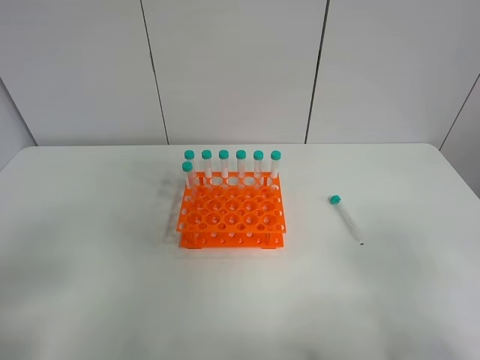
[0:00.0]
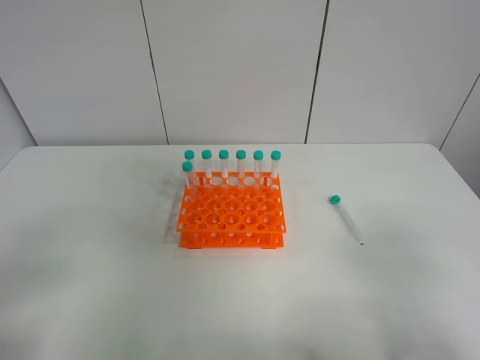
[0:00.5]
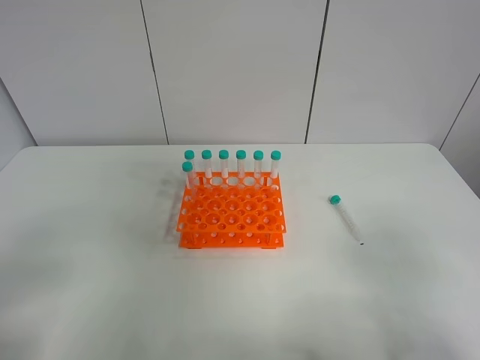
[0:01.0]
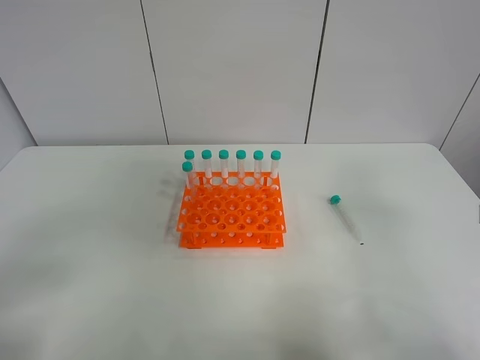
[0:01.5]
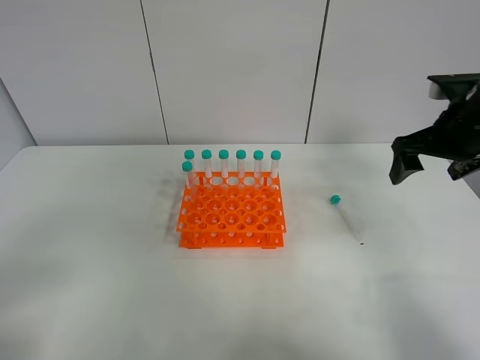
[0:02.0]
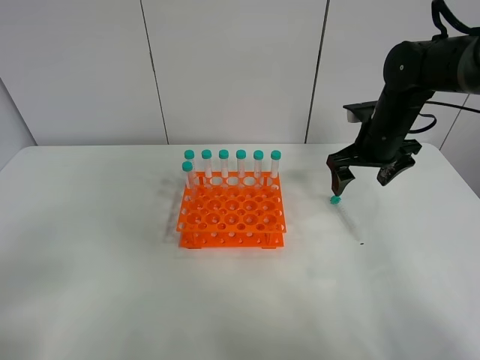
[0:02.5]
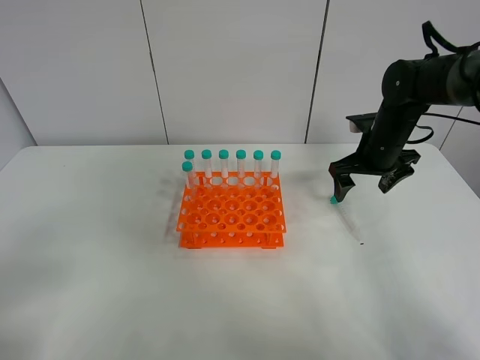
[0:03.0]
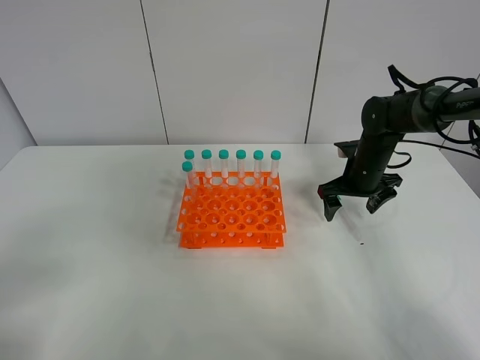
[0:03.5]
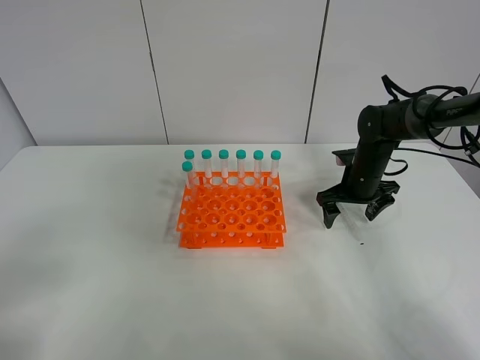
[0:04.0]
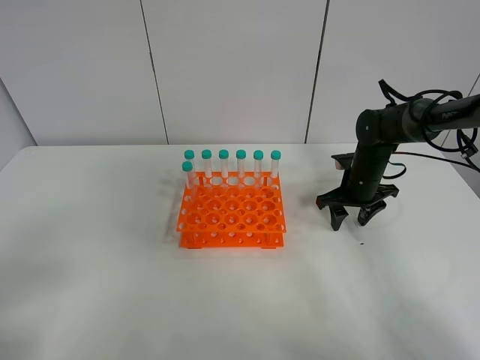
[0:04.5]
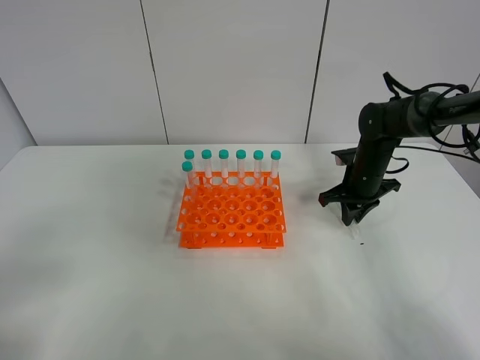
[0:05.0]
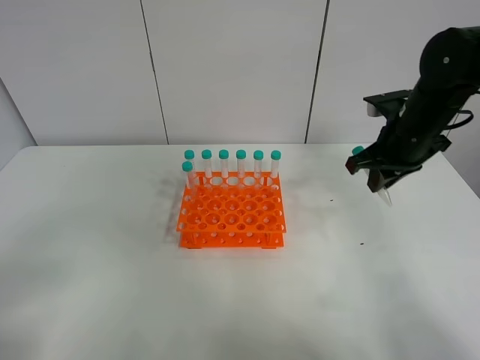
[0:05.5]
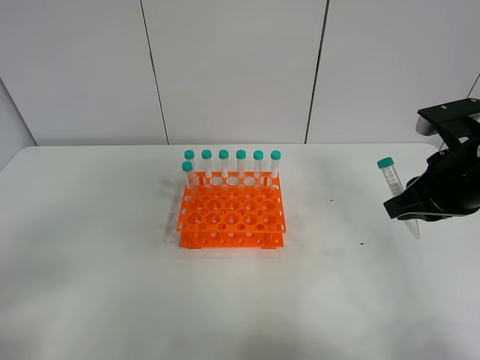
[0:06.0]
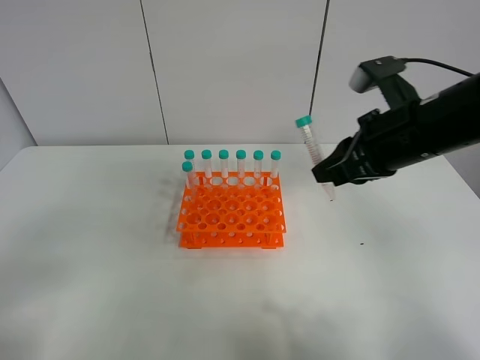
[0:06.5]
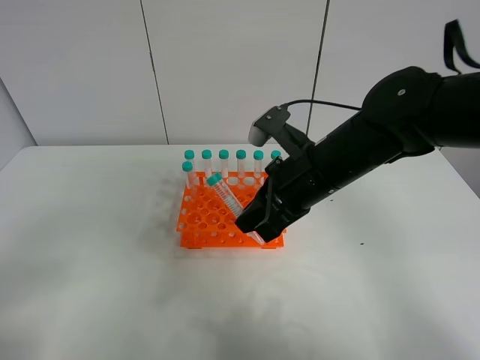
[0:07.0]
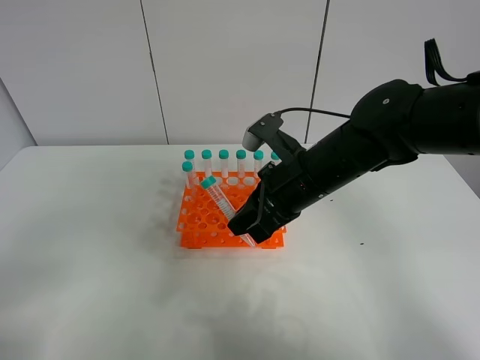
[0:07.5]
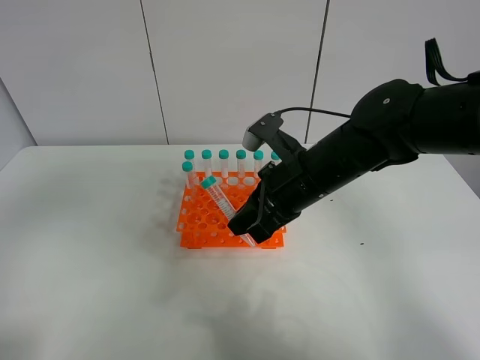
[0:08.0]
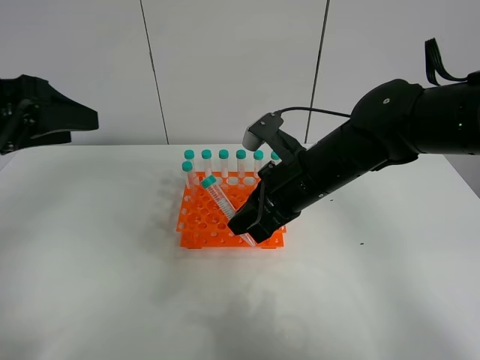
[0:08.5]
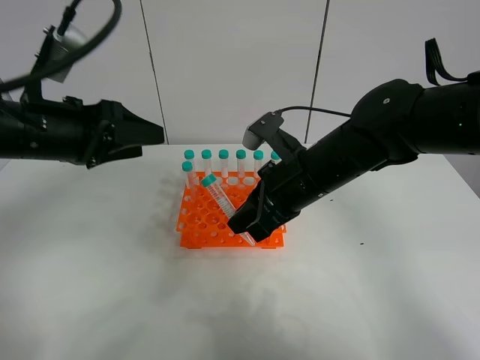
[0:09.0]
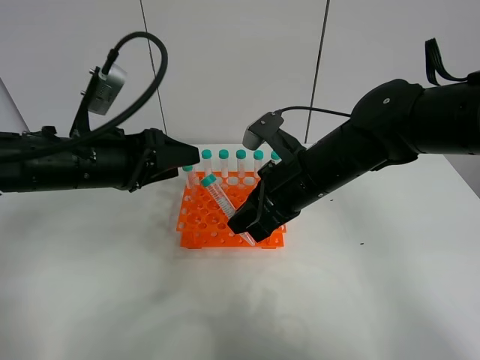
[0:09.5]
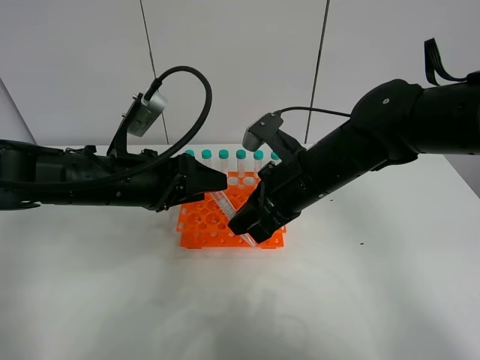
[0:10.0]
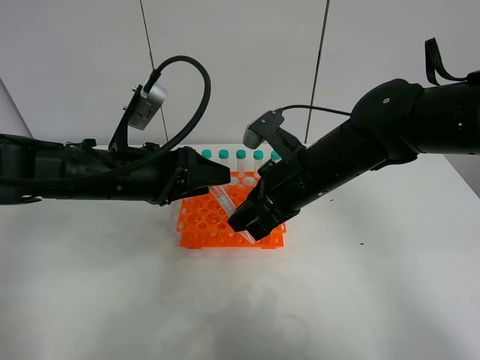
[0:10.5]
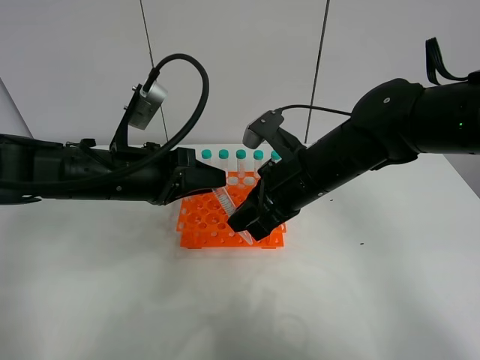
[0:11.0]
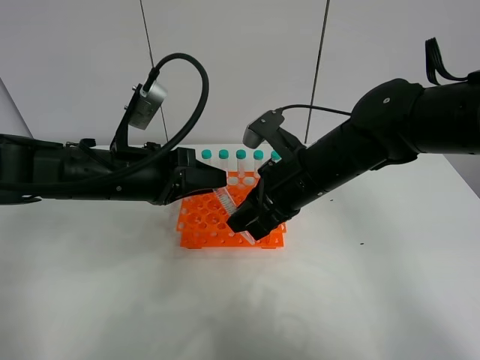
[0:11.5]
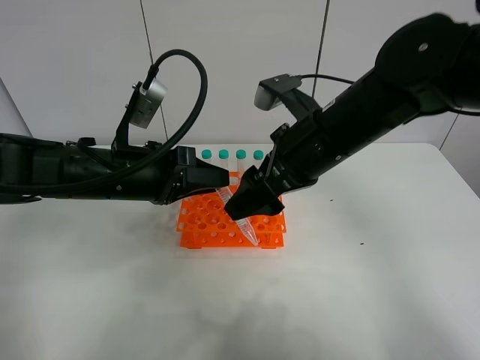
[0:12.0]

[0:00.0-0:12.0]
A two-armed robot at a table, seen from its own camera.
Task of the whole recording: Put the test tube on the table back onto the test tube rack.
Step, 0:00.0 to 0:04.5: Pick up the test tube with the right gripper.
Step, 0:05.0 to 0:11.5: Move the test tube from the right gripper to the left gripper.
0:00.0 to 0:02.0: The right gripper moves forward, about 35 cm.
0:02.0 to 0:04.0: The right gripper moves downward and forward, about 20 cm.
0:04.0 to 0:06.0: The right gripper moves backward and upward, approximately 25 cm, and closes up.
0:06.0 to 0:08.0: The right gripper heads to the left, covering some 15 cm. Meanwhile the left gripper moves upward and forward, approximately 15 cm.
0:08.0 to 0:10.0: The left gripper shifts roughly 30 cm forward, downward and to the right.
0:10.0 to 0:12.0: The left gripper closes up. The right gripper is displaced upward by approximately 5 cm, and opens up.

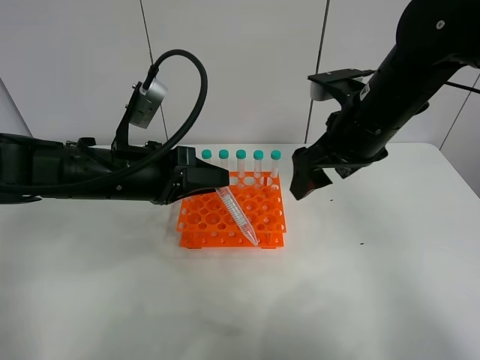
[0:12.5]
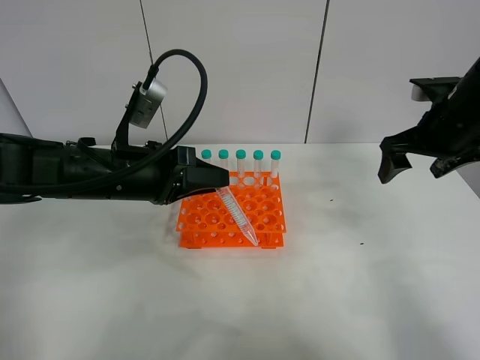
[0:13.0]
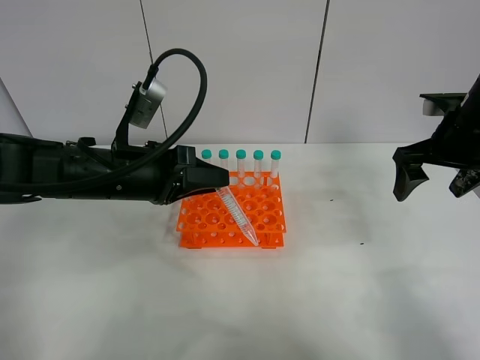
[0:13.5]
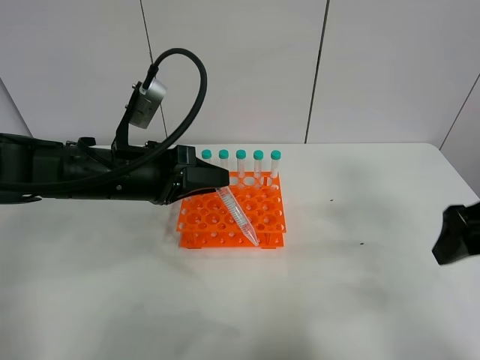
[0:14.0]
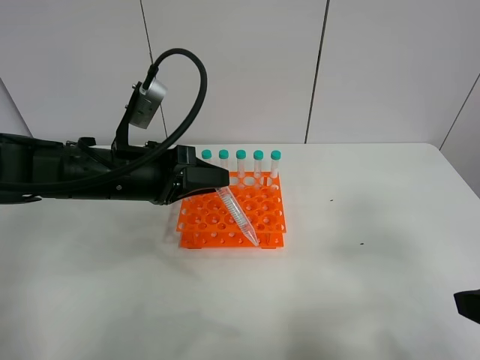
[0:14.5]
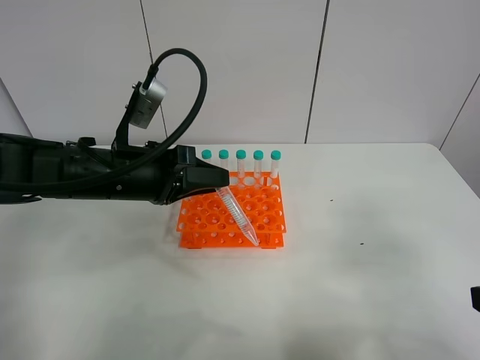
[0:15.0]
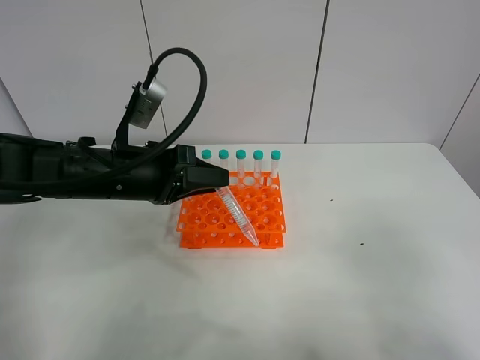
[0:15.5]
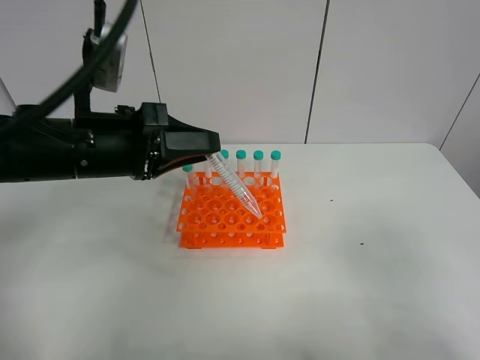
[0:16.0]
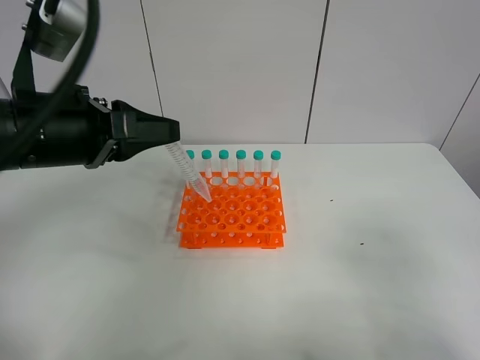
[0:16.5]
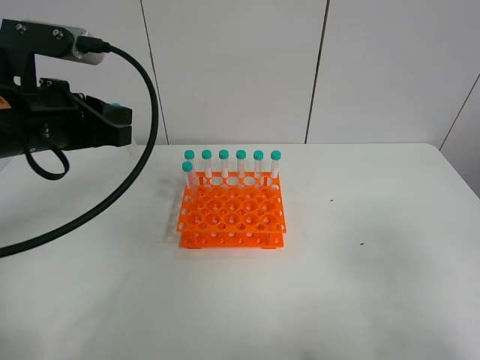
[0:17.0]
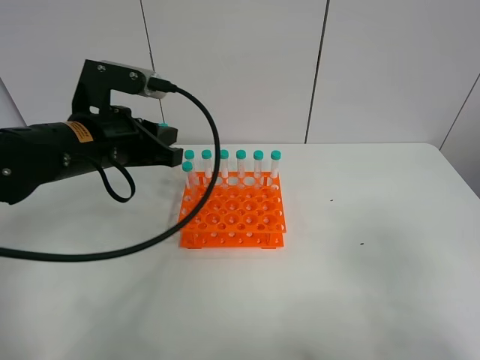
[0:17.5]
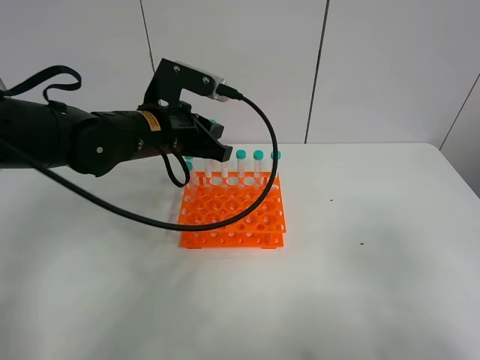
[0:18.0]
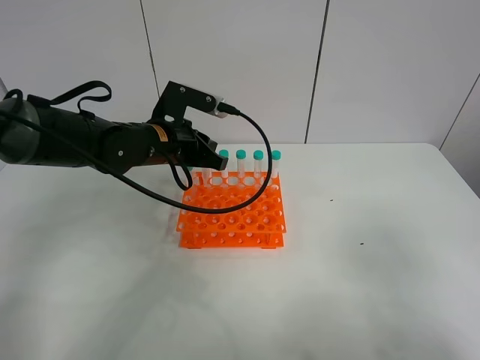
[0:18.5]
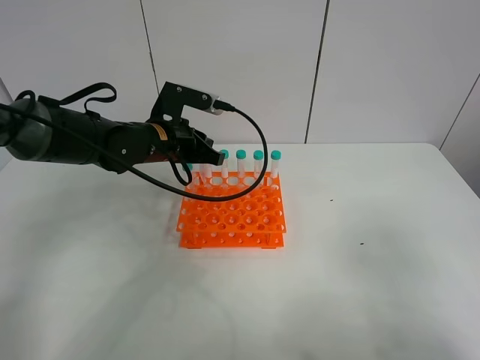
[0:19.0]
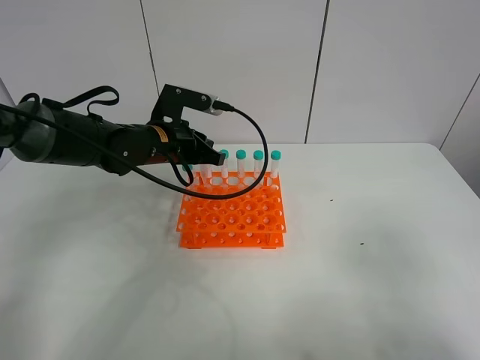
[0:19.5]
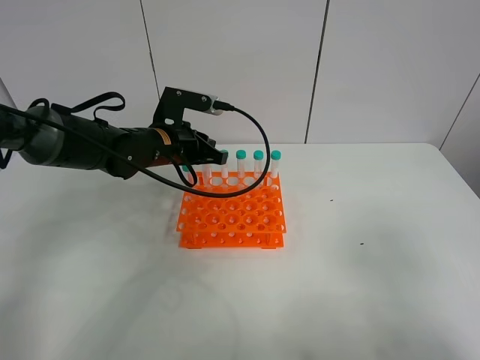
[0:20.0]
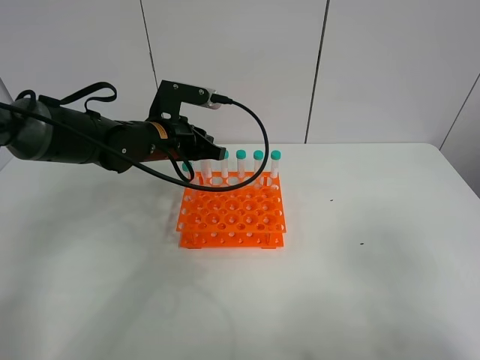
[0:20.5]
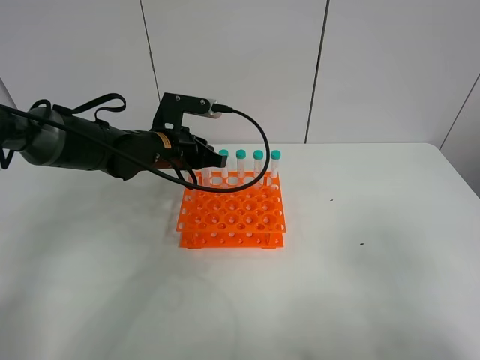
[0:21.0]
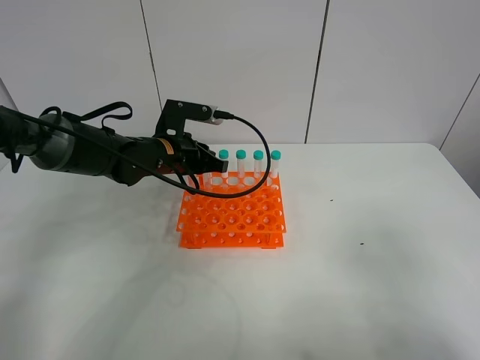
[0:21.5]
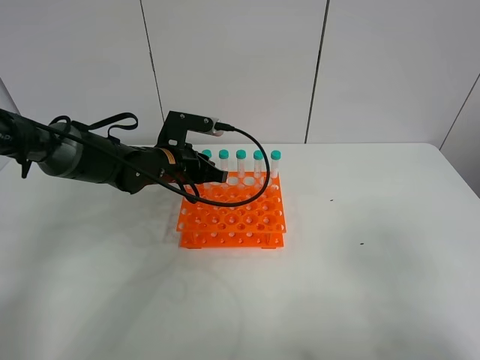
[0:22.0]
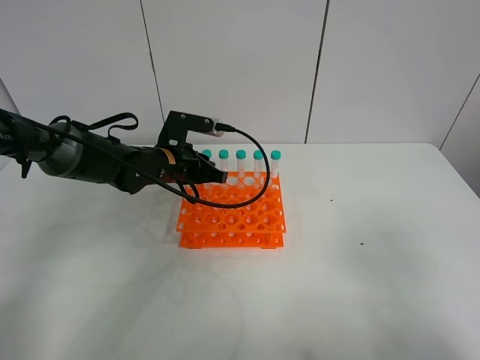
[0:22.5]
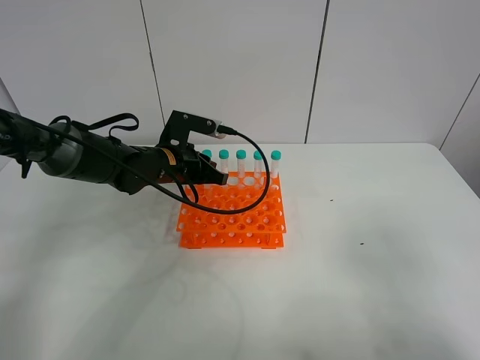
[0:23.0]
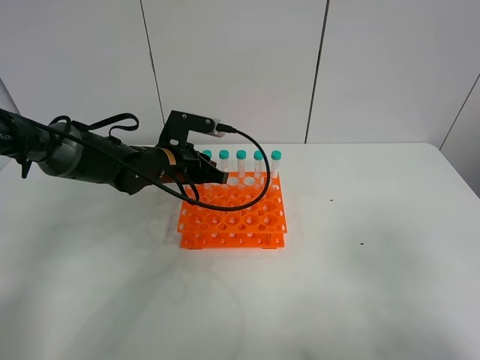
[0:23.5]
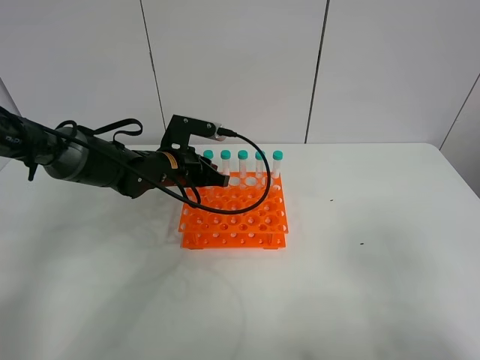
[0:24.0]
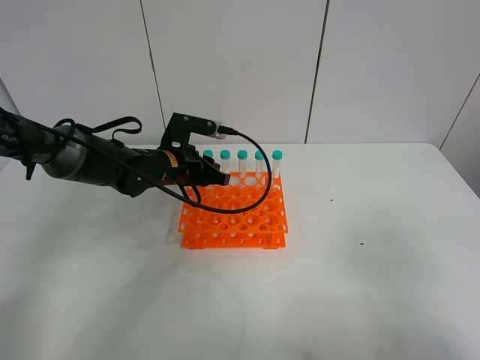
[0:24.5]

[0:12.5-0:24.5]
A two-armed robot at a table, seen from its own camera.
Task of the whole recording: Put the test tube on the table back onto the test tube rack.
0:12.5 to 0:14.5: The right gripper is displaced backward and to the right by approximately 25 cm.
0:14.5 to 0:16.5: The left gripper heads upward, covering some 10 cm; the right gripper goes roughly 5 cm backward.
0:16.5 to 0:18.5: The left gripper heads forward, downward and to the right, covering some 20 cm.
0:18.5 to 0:22.5: The grippers make only small movements.
0:22.5 to 0:24.5: Neither gripper changes place.

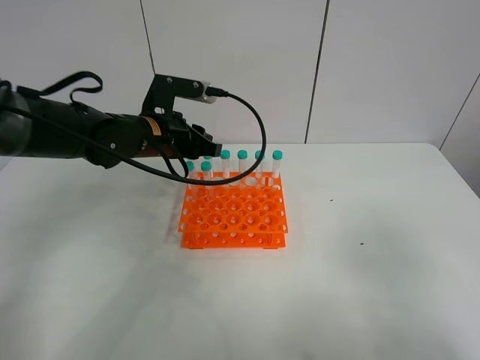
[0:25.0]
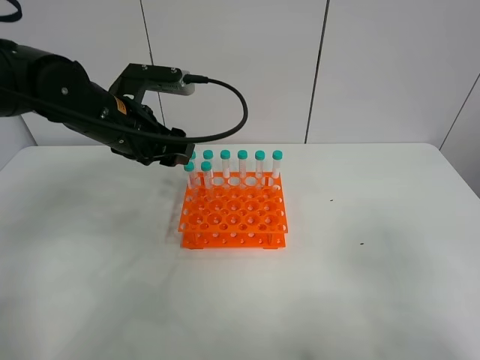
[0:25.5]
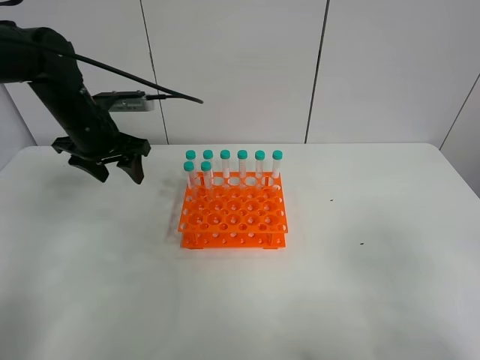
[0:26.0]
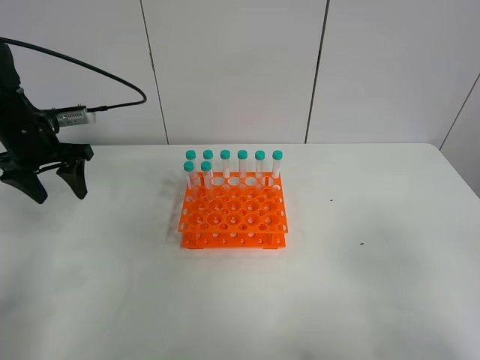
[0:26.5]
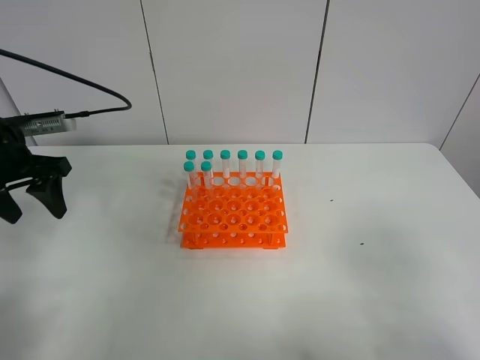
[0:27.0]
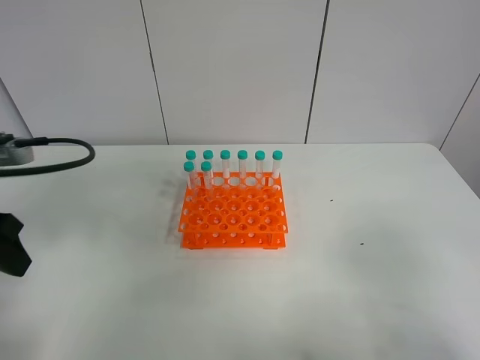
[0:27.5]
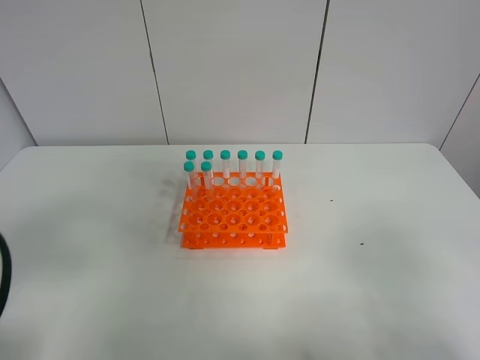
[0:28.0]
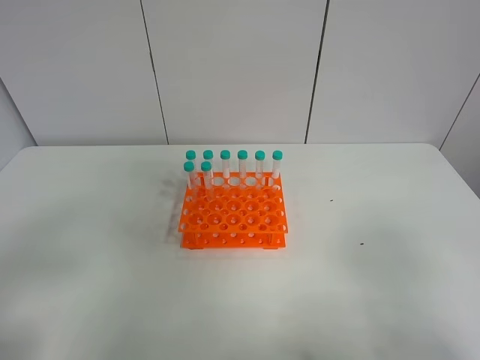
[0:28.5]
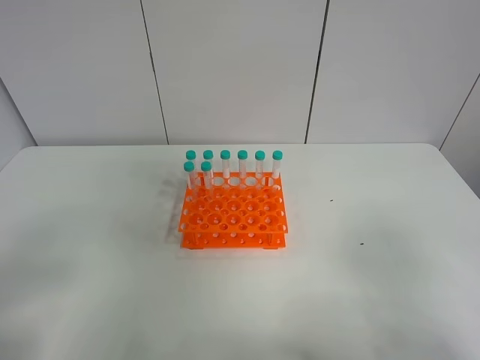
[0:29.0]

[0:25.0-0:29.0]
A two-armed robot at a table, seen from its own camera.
Task of the whole recording: Put the test tube on the table back onto the test tube rack.
0:25.0 to 0:27.0: The left gripper travels to the left by approximately 20 cm, and opens.
0:27.0 to 0:29.0: The left gripper shifts some 30 cm backward.
